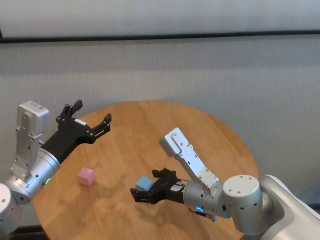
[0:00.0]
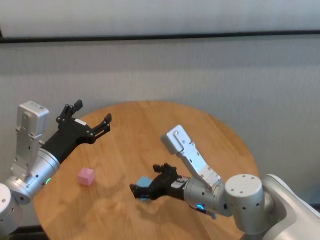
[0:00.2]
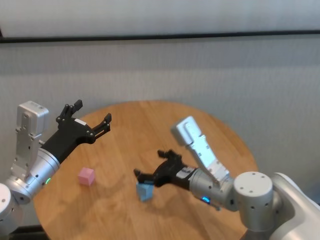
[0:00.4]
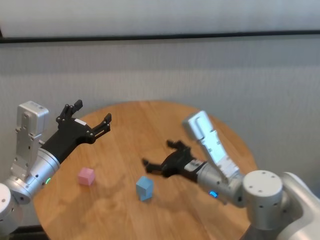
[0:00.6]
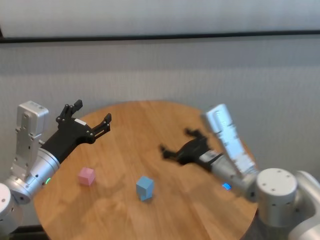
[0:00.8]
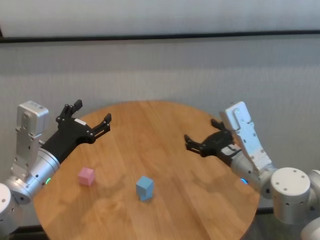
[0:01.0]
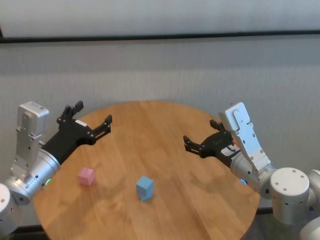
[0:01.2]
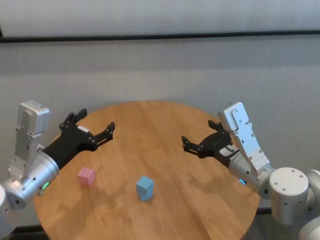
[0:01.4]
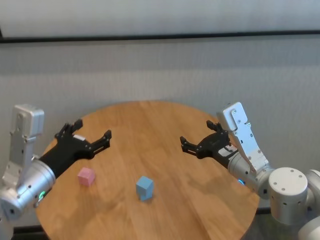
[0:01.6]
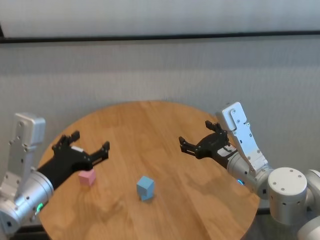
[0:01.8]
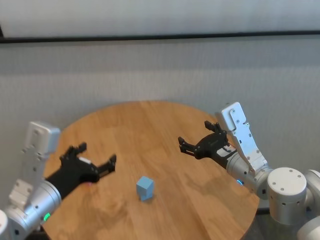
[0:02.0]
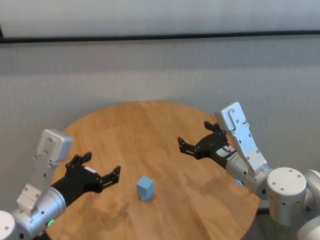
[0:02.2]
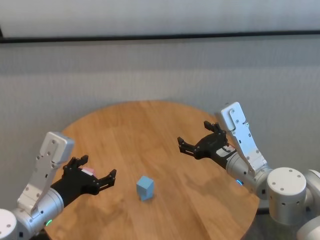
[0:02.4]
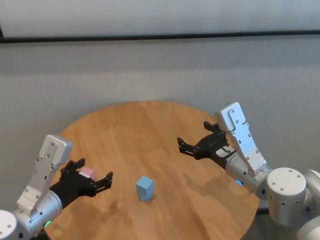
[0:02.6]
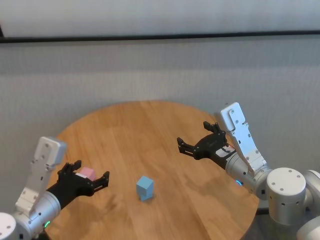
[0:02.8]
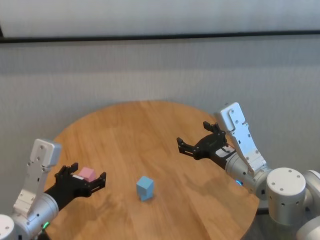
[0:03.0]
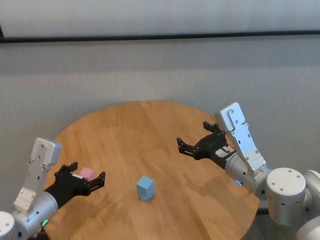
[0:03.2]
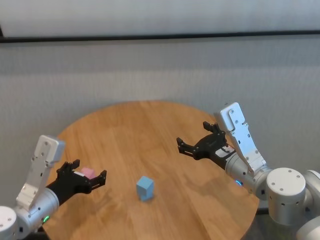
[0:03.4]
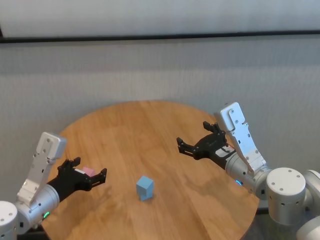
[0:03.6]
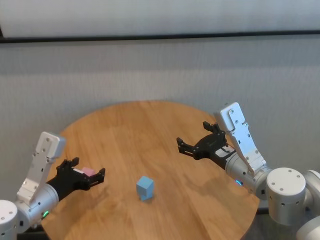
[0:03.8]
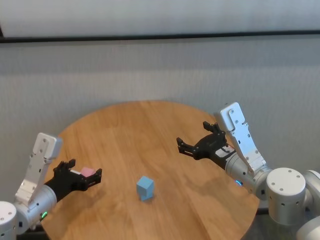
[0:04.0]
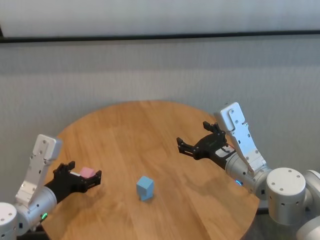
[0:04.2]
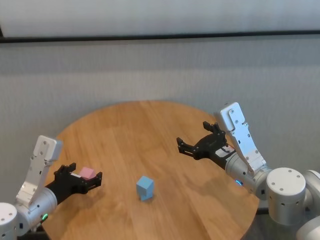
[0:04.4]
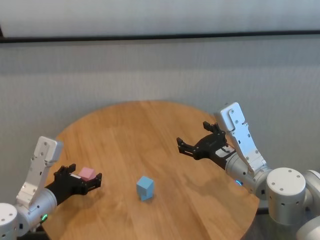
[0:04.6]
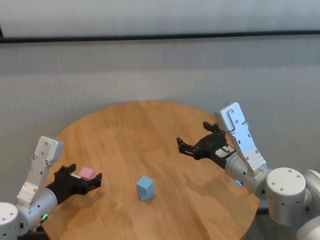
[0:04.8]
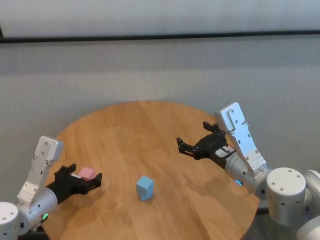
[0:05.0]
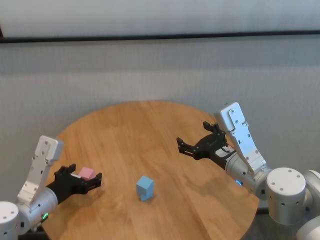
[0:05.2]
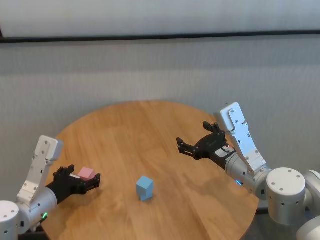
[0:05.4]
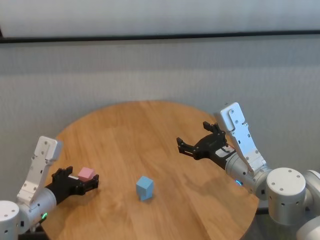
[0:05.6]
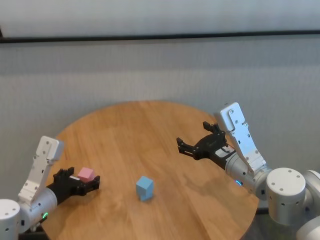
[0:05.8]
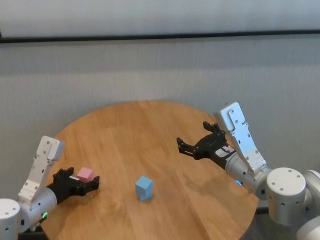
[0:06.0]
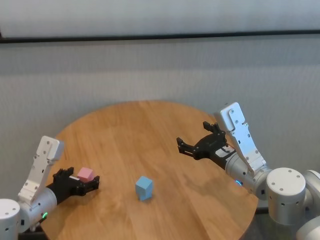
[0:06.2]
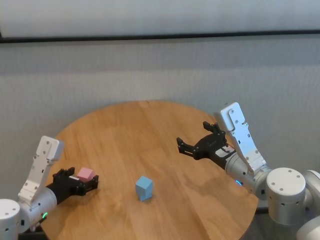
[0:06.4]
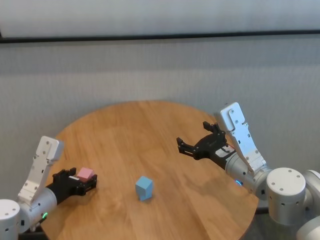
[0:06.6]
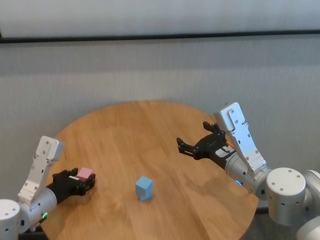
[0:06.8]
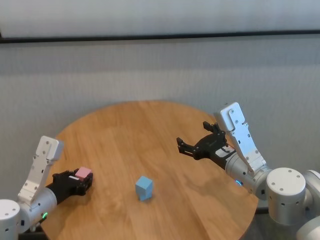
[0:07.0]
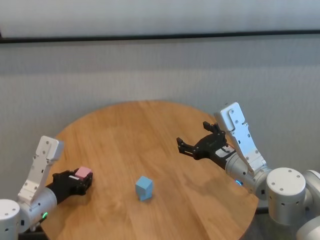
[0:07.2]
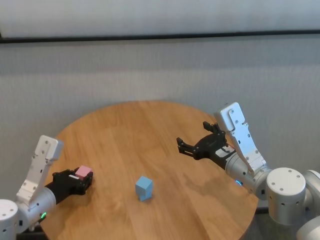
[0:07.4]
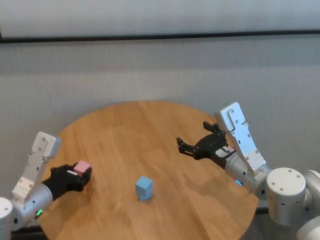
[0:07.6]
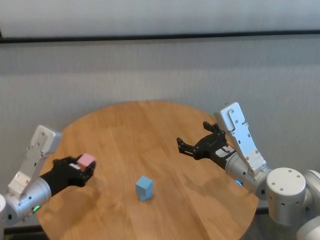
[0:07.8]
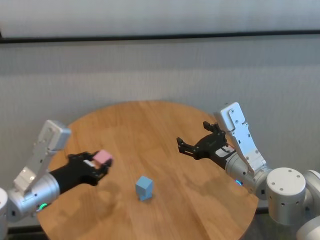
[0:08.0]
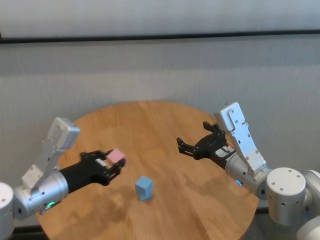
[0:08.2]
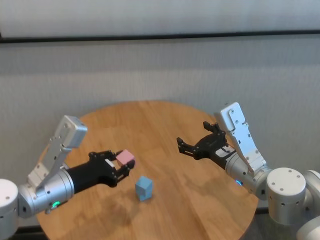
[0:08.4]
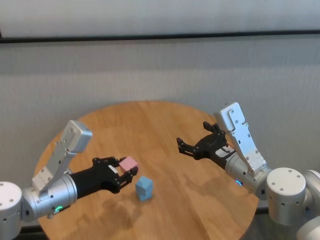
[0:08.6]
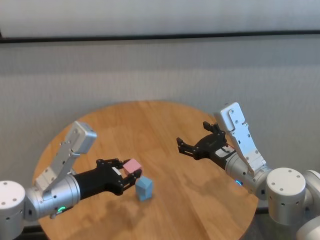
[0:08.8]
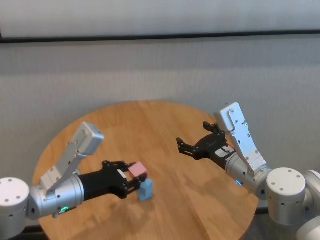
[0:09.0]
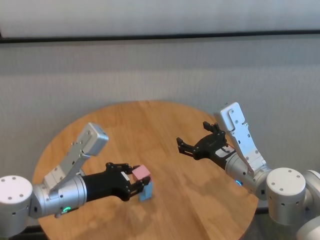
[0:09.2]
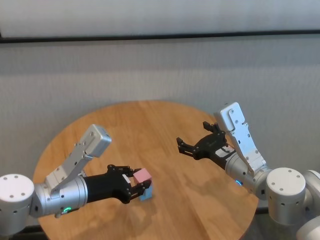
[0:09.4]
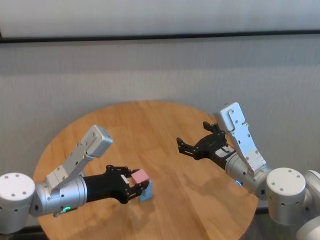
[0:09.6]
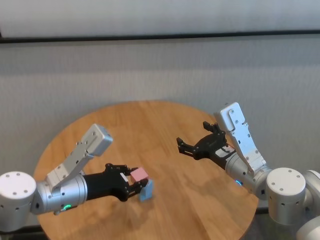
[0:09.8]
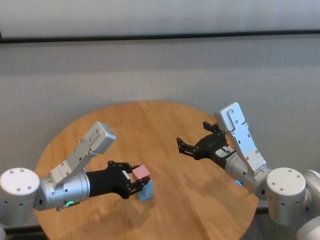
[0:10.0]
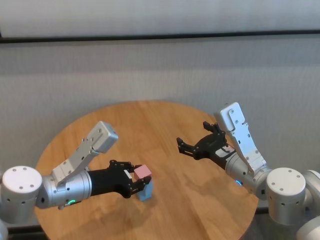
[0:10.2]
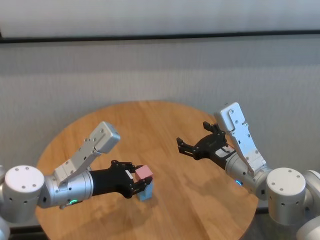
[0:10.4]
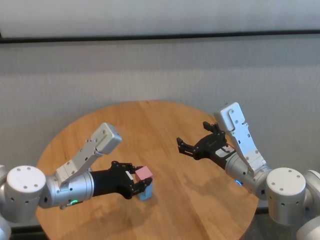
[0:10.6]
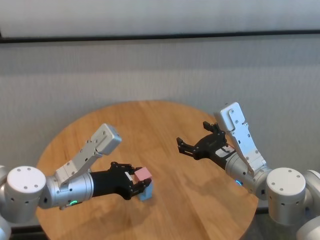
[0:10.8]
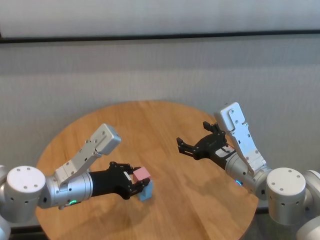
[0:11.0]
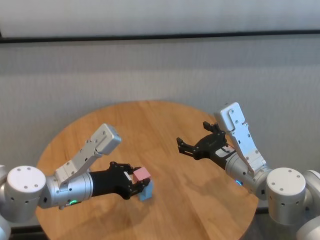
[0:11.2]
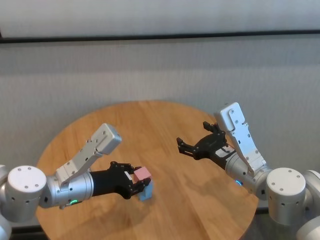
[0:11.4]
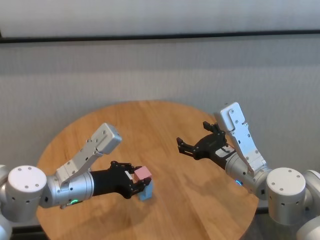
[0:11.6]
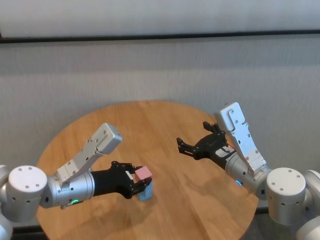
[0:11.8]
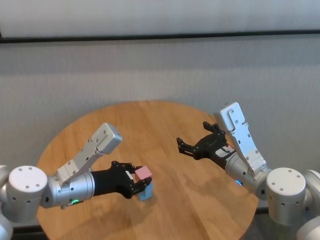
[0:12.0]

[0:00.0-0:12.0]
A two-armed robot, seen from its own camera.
Task of the whole recording: stack building blocks on the table.
Step, 0:00.0 to 0:07.0: Grasp the pink building block with left gripper.
